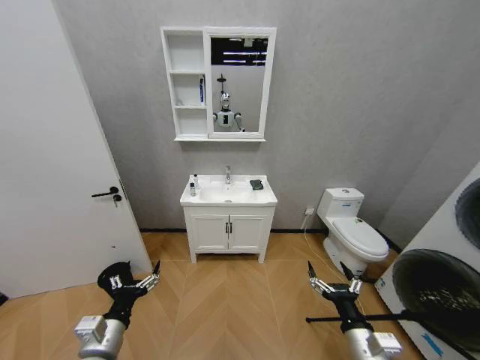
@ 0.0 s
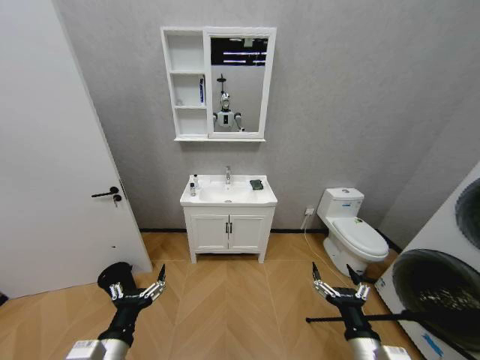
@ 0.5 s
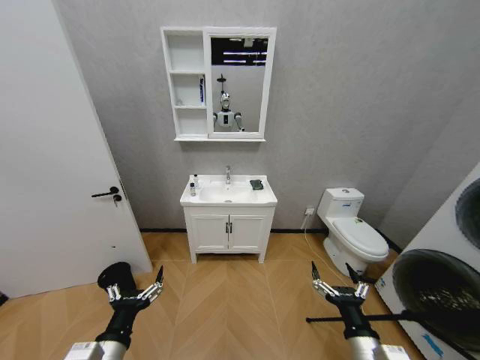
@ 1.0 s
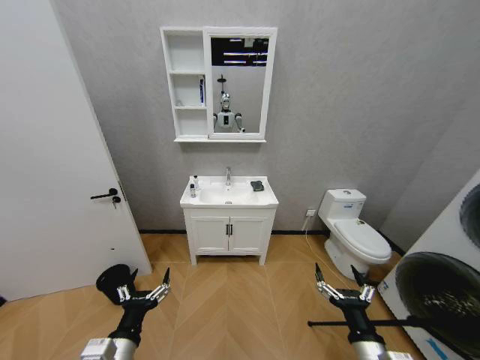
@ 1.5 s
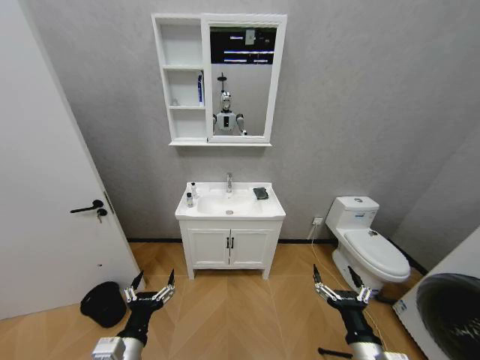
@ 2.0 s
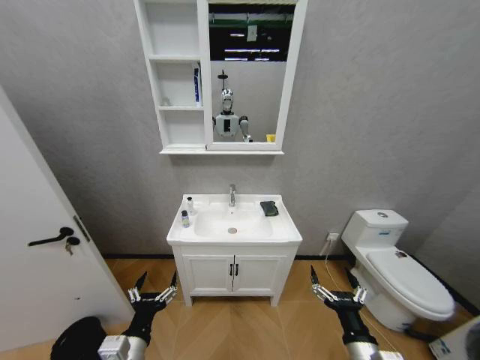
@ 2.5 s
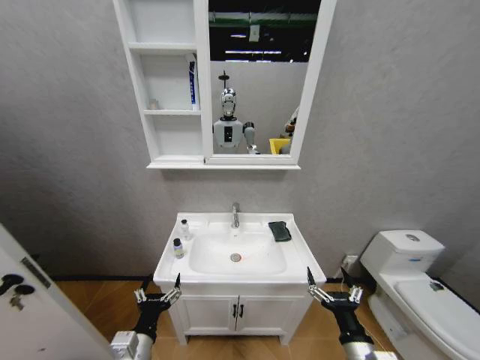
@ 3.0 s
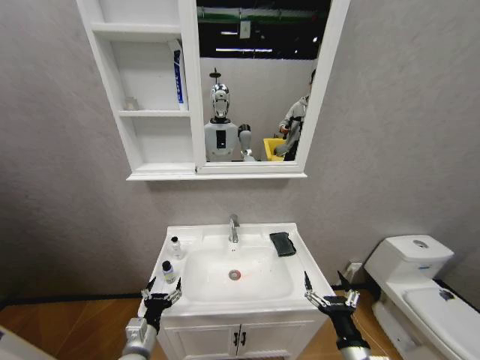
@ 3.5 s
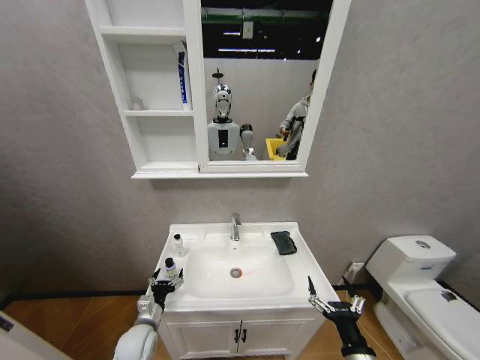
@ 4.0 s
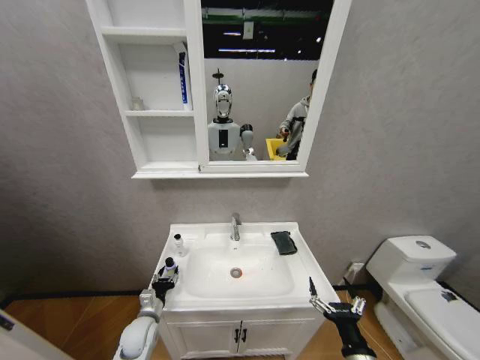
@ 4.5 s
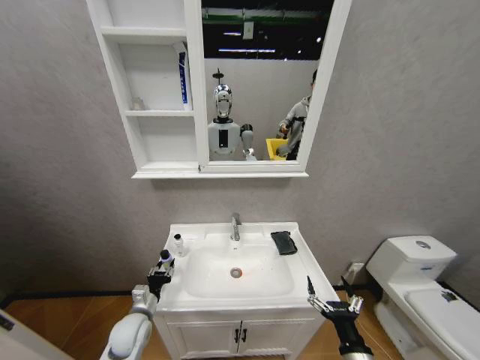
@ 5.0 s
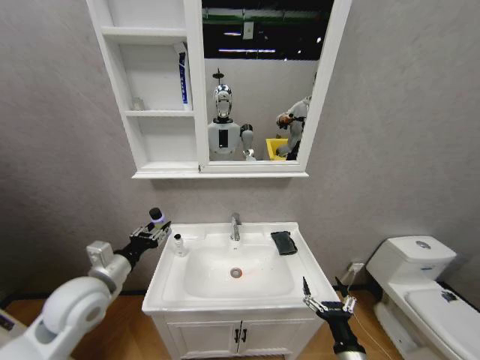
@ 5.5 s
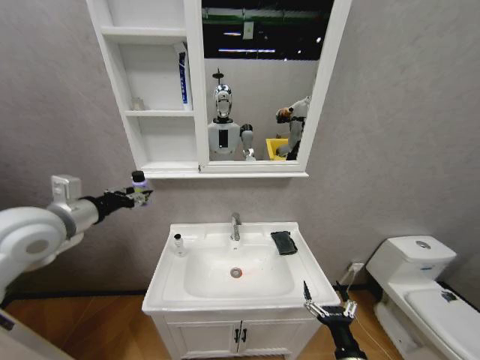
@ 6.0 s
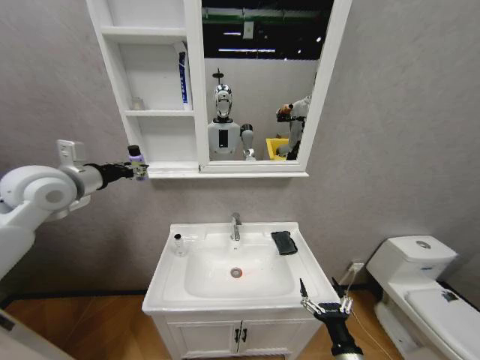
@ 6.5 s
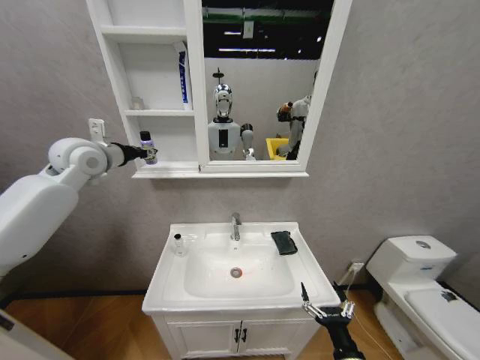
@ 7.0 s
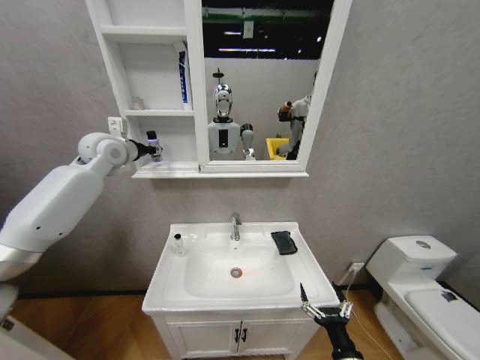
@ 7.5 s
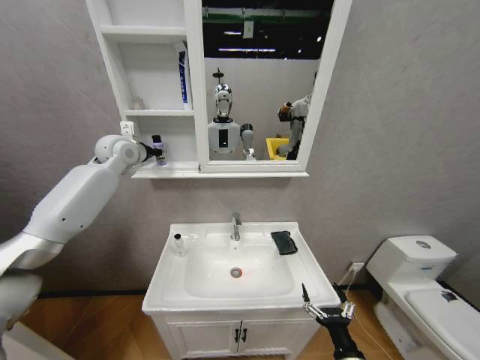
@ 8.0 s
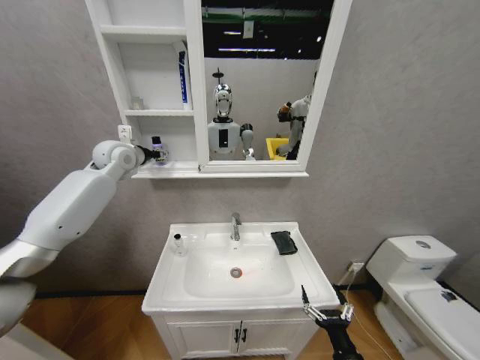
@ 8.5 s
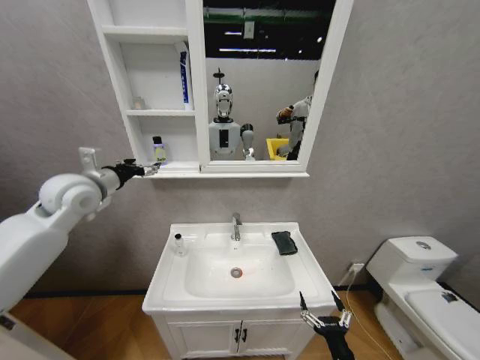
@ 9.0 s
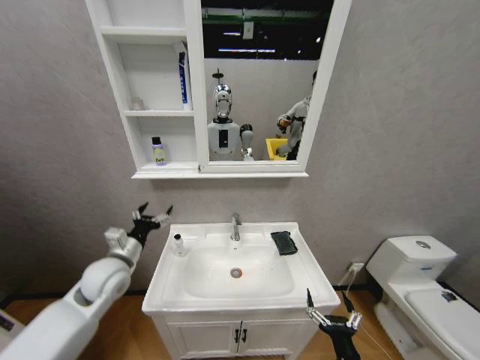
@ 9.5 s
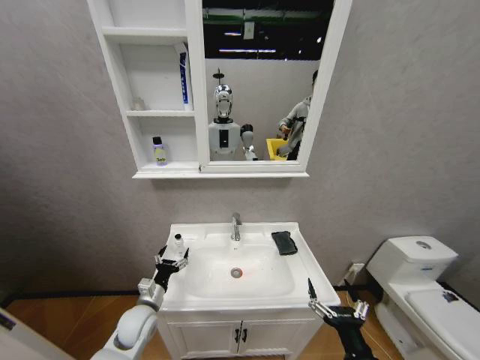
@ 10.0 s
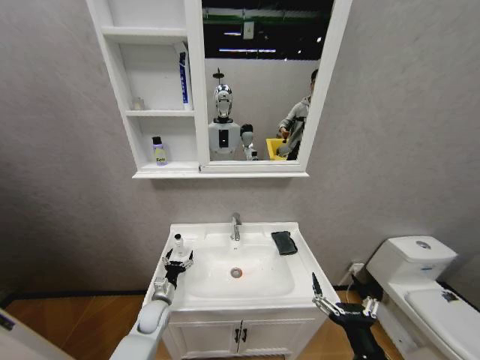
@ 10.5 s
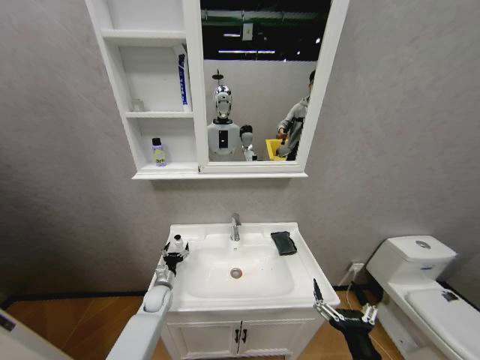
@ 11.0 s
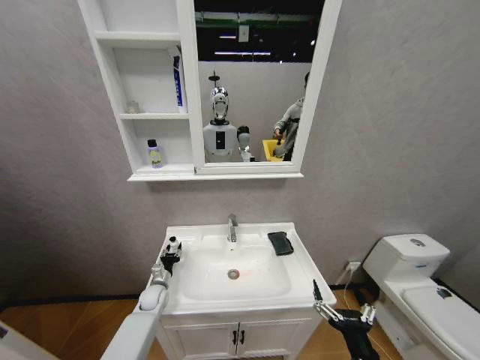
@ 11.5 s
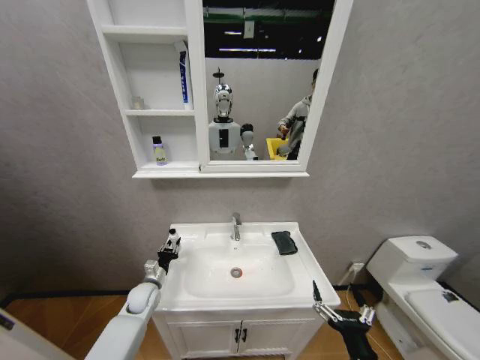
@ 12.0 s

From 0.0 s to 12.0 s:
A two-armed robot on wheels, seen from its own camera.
Task of the whole recording: Move facial cleanser and shampoo from washbasin to cabinet, then wipe washbasin with towel.
From 2.0 s to 4.0 s: The left gripper moves forward and downward, some 20 cm.
From 4.0 s to 6.0 s: The left gripper moves upward, roughly 40 cm, and closes its fingers.
From 6.0 s to 8.0 s: The left gripper heads forward, covering some 25 cm.
From 8.0 s to 10.0 s: The right gripper travels upward by about 5 cm; the left gripper shifts approximately 50 cm downward and backward, and opens up.
From 10.0 s to 12.0 s: The left gripper is displaced forward by approximately 10 cm, and closes its fingers.

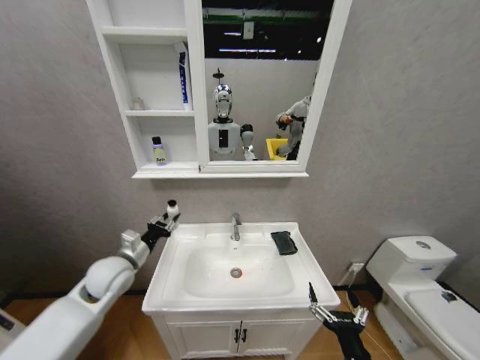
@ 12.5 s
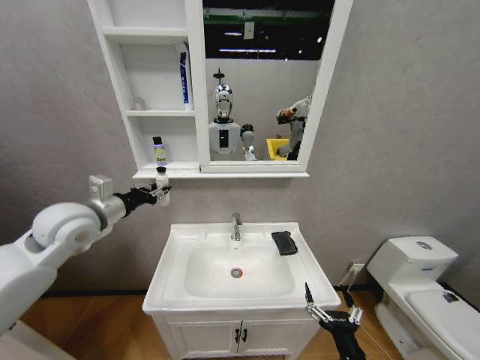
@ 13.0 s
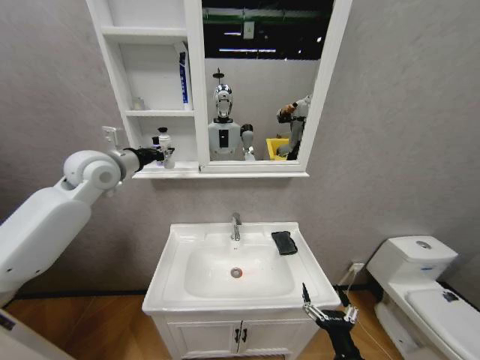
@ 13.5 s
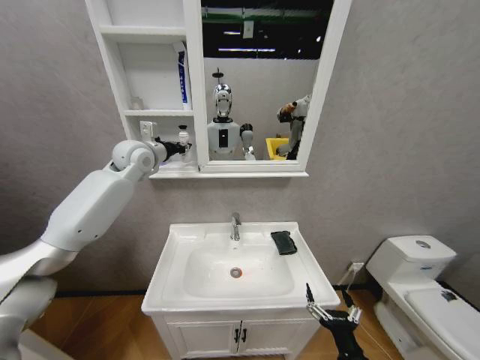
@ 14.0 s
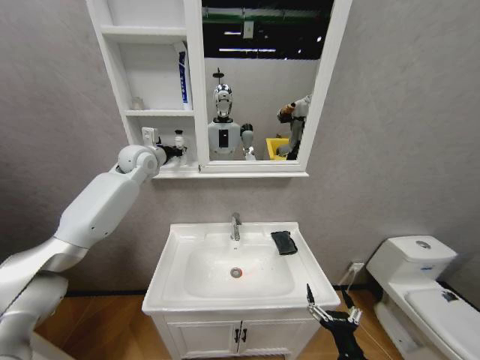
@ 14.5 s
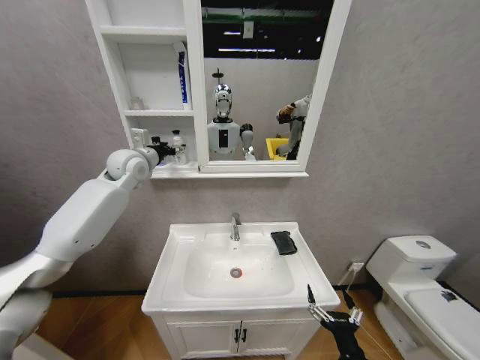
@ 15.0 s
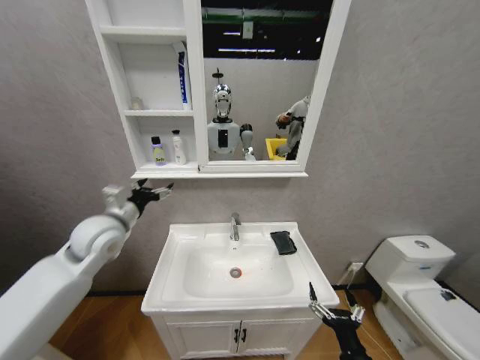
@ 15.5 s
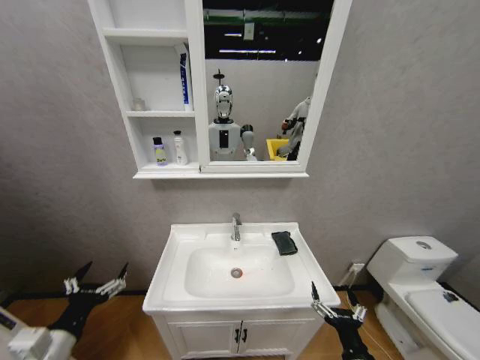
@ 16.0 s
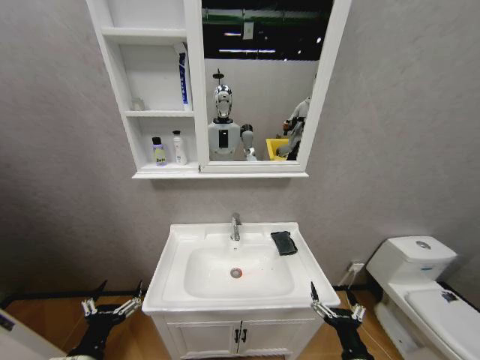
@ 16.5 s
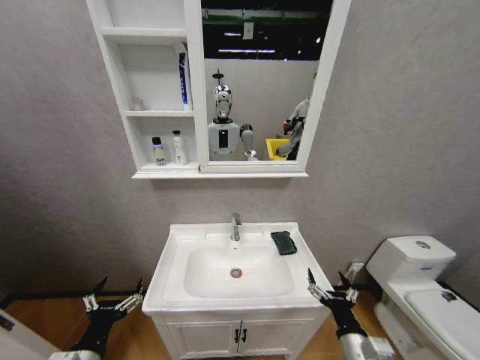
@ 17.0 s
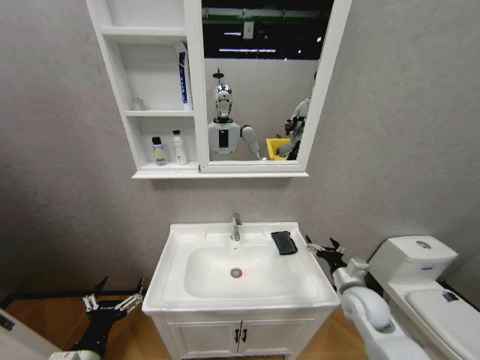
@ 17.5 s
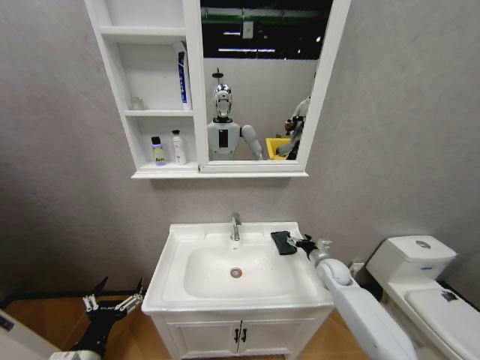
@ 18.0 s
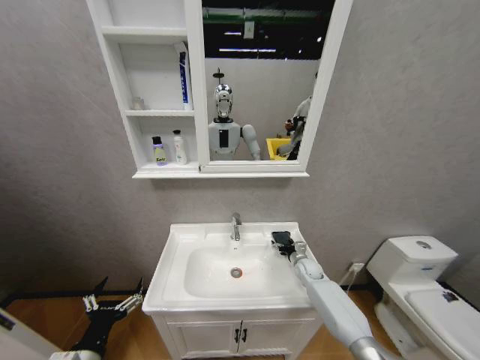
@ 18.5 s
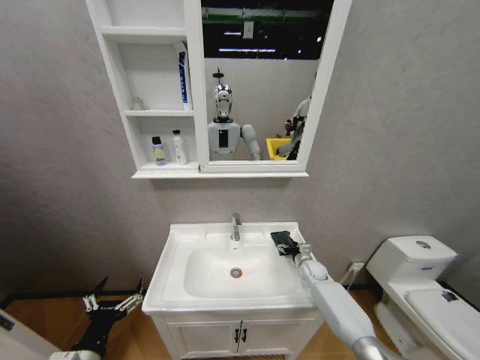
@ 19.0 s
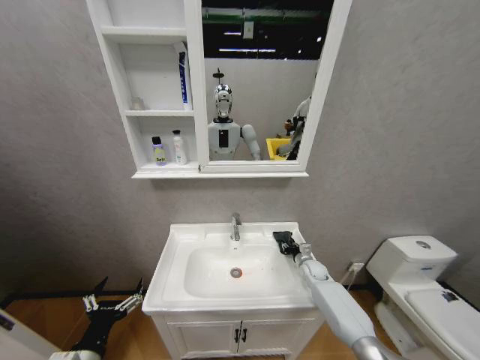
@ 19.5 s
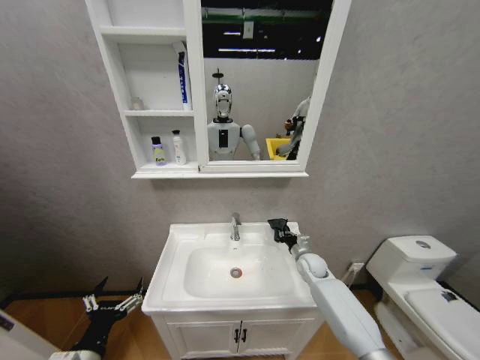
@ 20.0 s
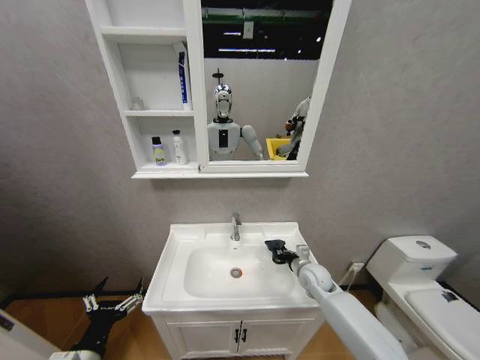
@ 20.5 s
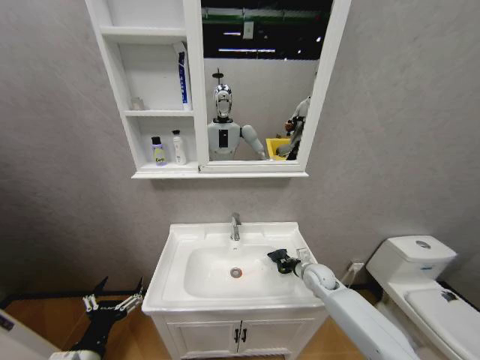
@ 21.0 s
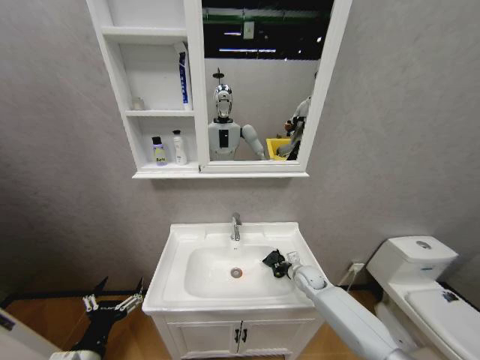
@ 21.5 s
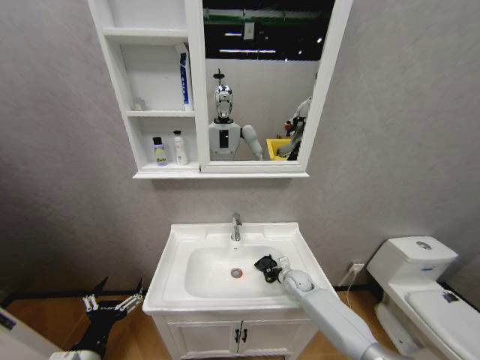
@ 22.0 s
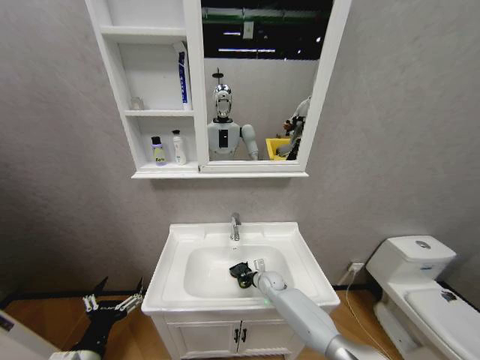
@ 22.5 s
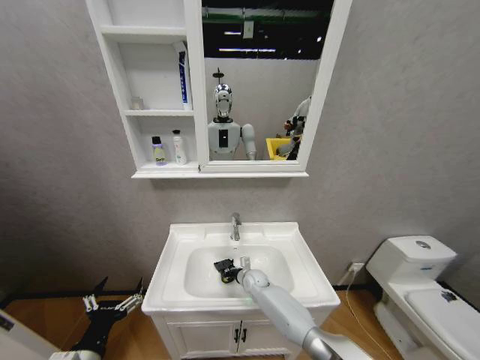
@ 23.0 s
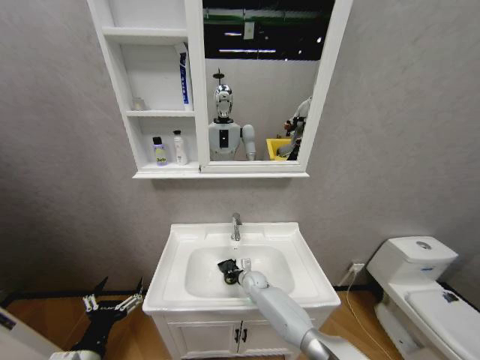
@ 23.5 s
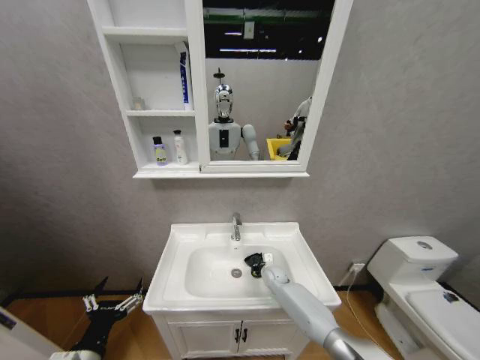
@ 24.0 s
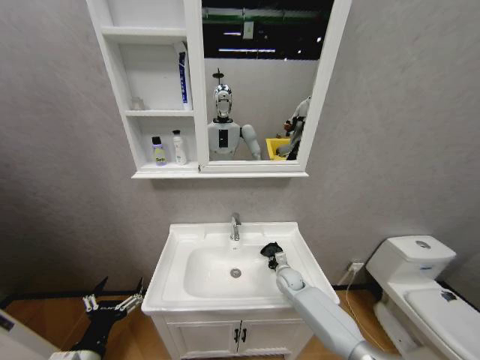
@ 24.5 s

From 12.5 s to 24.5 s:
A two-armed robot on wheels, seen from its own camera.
Task of the whole recording: Move facial cleanser and shampoo from washbasin to cabinet, then wipe washbasin with towel.
From 12.5 s to 14.5 s: The left gripper heads upward and forward, covering some 35 cm.
From 14.5 s to 16.5 s: The left gripper heads backward and downward, covering some 50 cm, and opens.
From 16.5 s to 18.5 s: The right gripper moves forward, approximately 40 cm.
From 18.5 s to 20.5 s: The right gripper goes about 10 cm backward and upward, and closes up.
From 20.5 s to 22.5 s: The right gripper is displaced downward, to the left and forward by roughly 15 cm.
From 22.5 s to 24.5 s: The right gripper goes some 5 cm to the right.

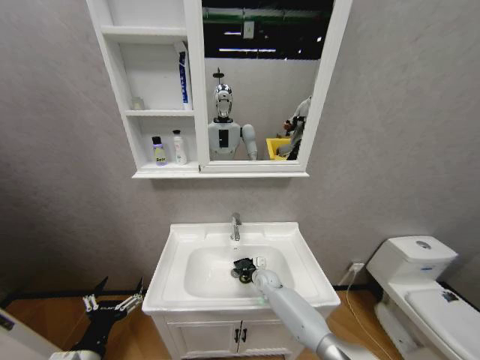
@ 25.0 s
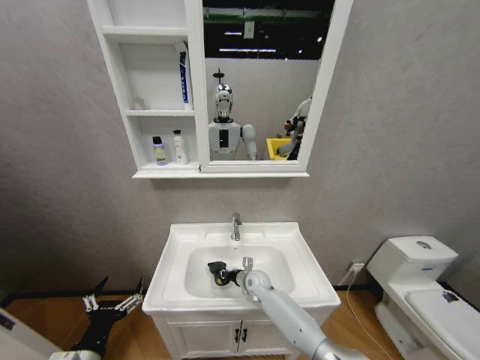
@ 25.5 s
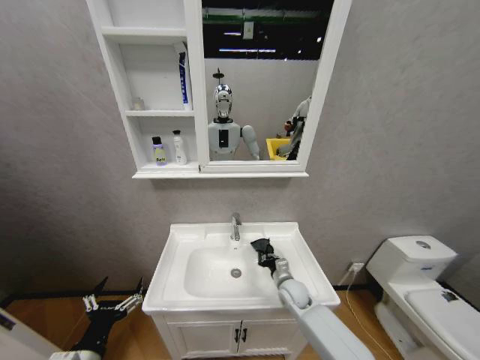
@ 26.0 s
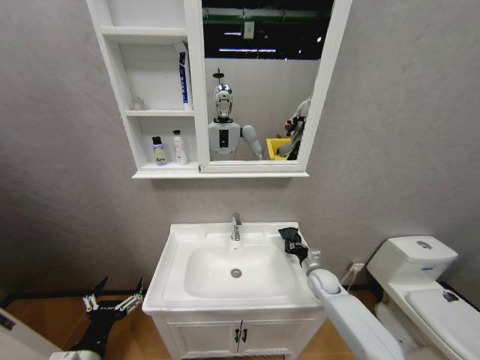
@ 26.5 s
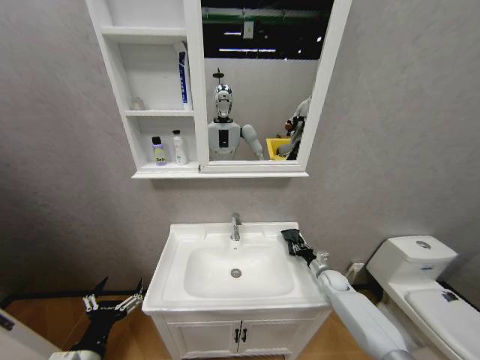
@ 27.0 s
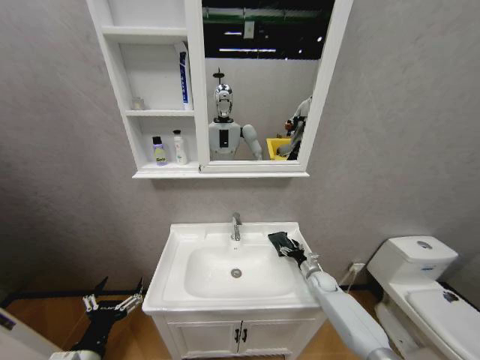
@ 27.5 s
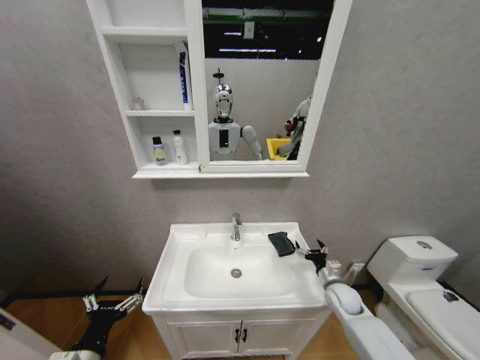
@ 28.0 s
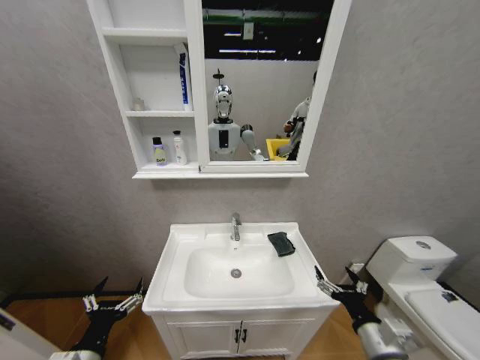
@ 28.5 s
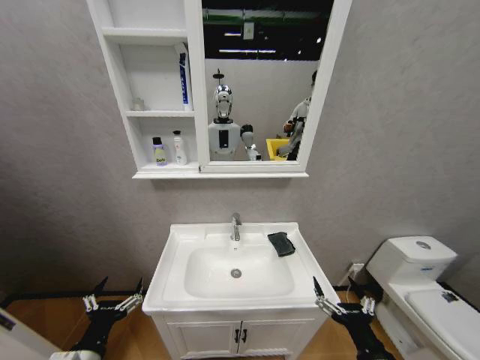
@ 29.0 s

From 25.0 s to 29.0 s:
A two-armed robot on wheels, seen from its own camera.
Task of the whole recording: Move facial cleanser and shampoo from washbasin to cabinet, then wipe washbasin with towel.
From 25.0 s to 27.0 s: The right gripper moves to the right, roughly 25 cm.
From 27.0 s to 29.0 s: The right gripper goes some 35 cm backward, and opens.
